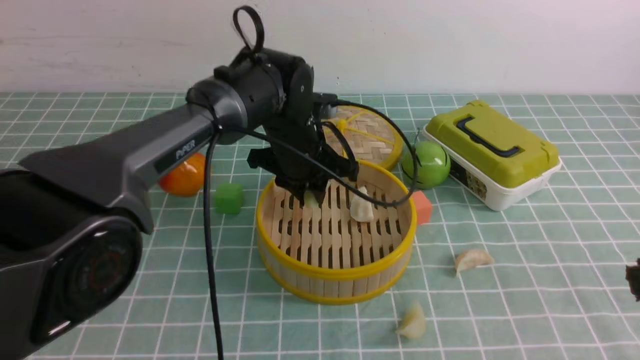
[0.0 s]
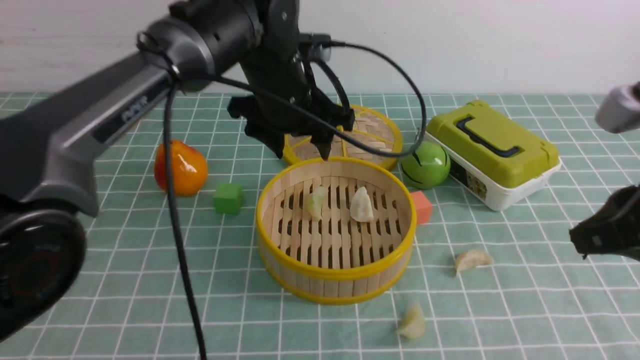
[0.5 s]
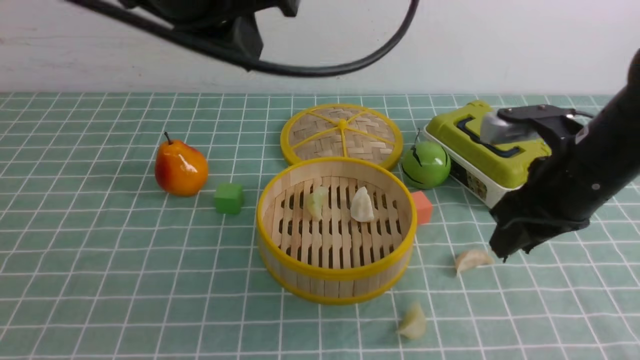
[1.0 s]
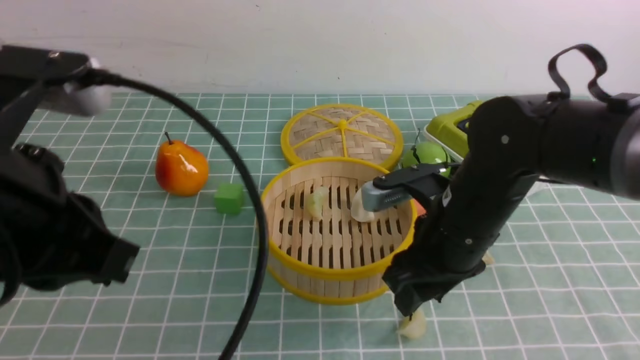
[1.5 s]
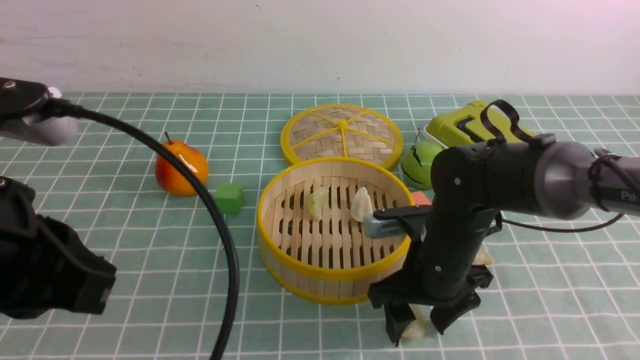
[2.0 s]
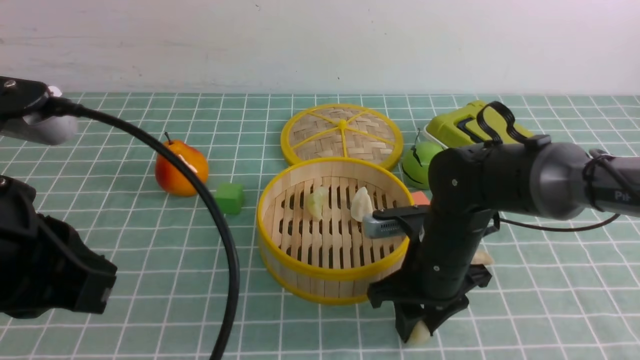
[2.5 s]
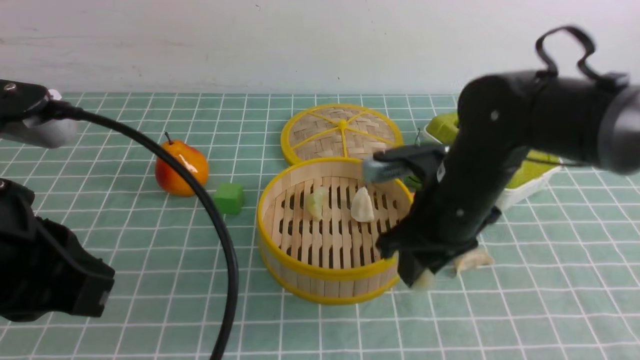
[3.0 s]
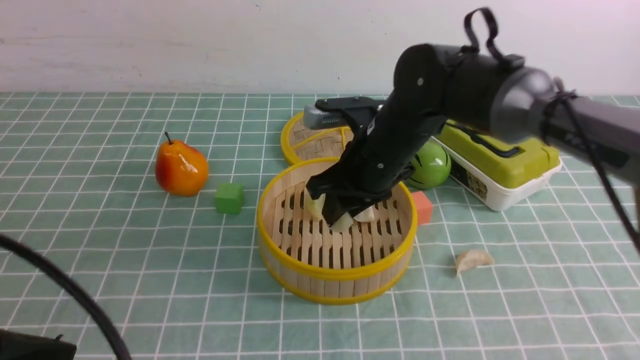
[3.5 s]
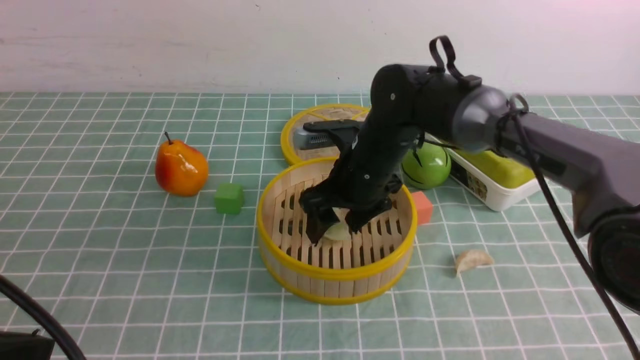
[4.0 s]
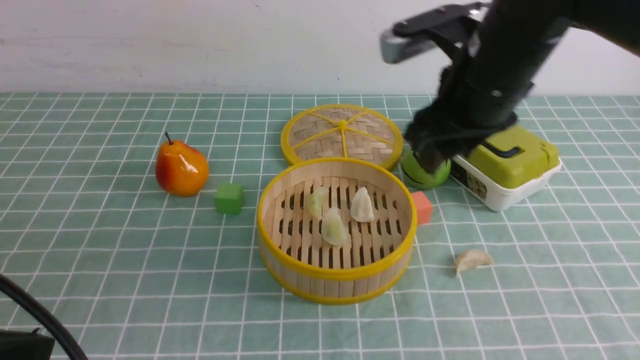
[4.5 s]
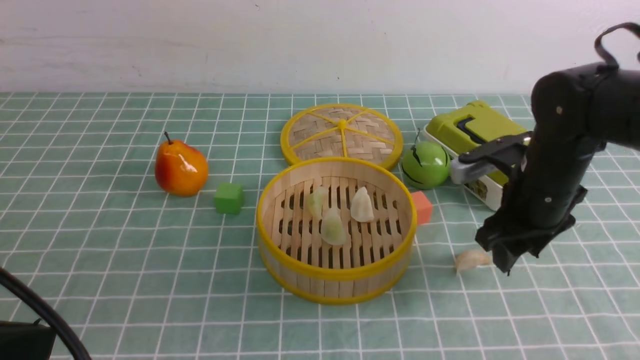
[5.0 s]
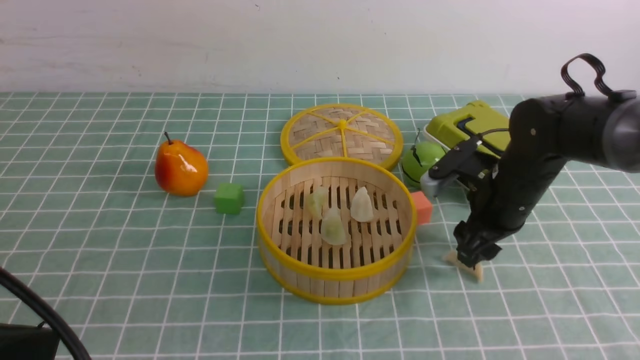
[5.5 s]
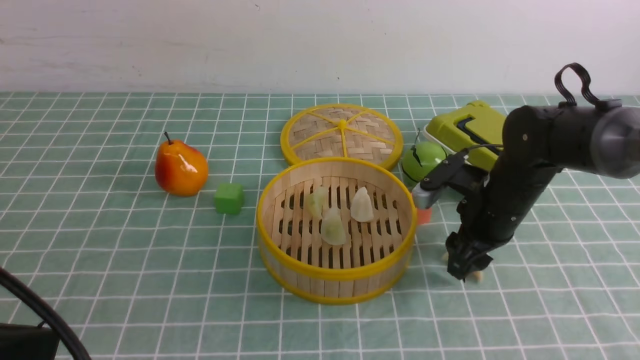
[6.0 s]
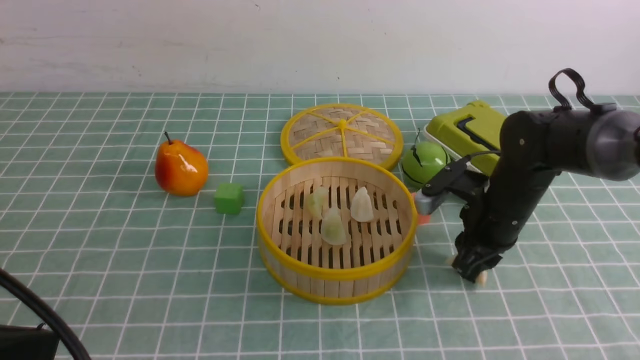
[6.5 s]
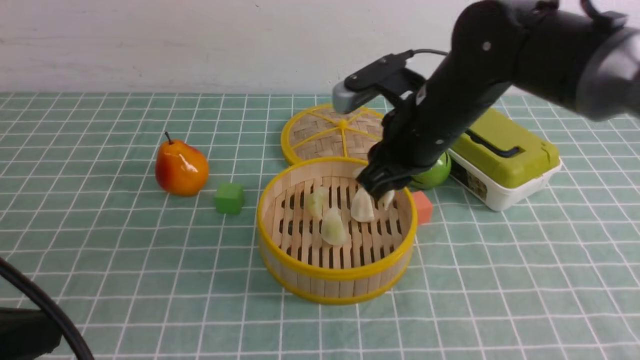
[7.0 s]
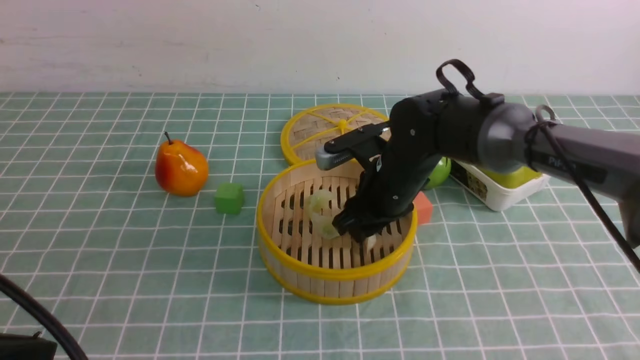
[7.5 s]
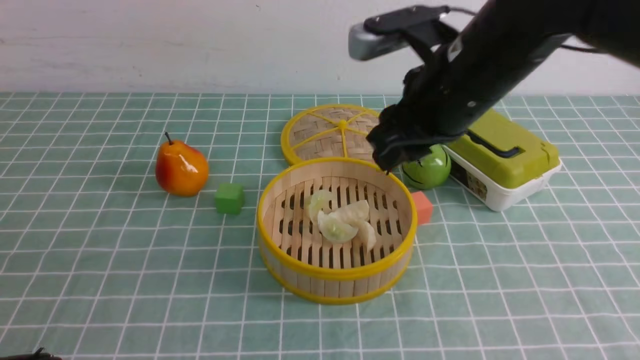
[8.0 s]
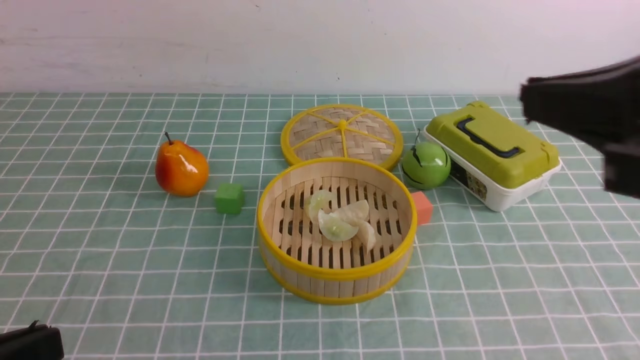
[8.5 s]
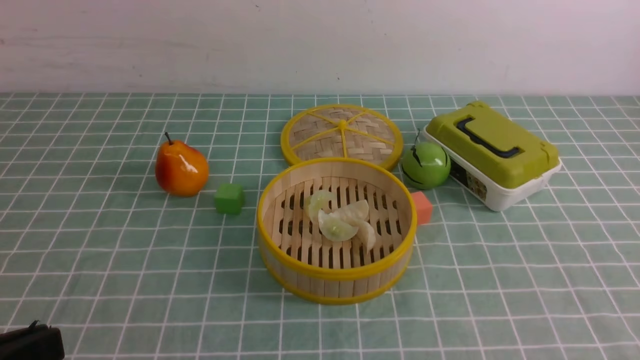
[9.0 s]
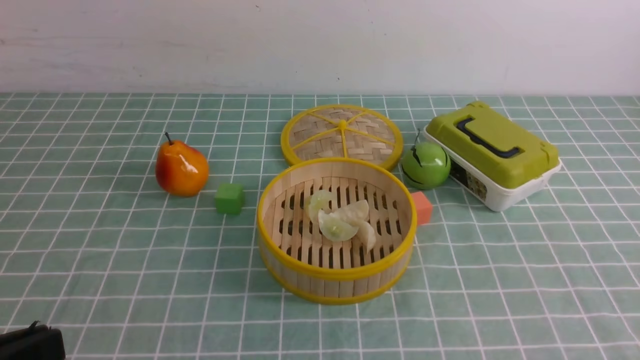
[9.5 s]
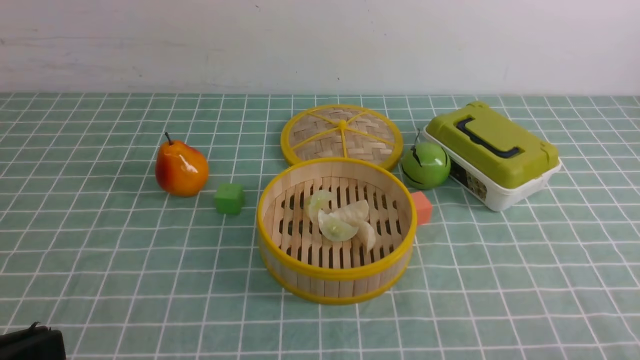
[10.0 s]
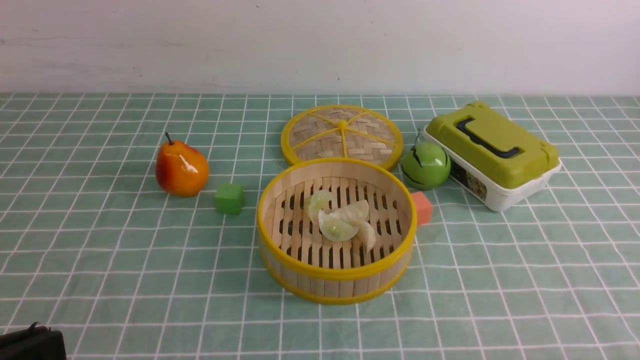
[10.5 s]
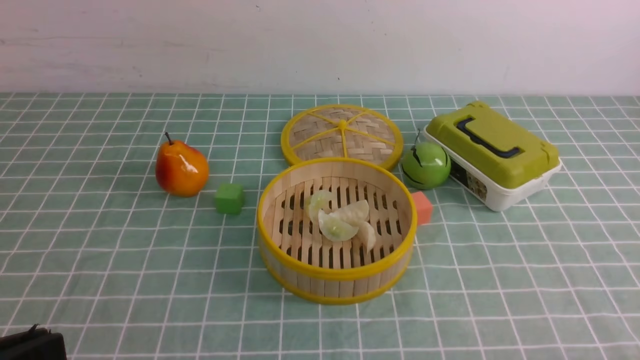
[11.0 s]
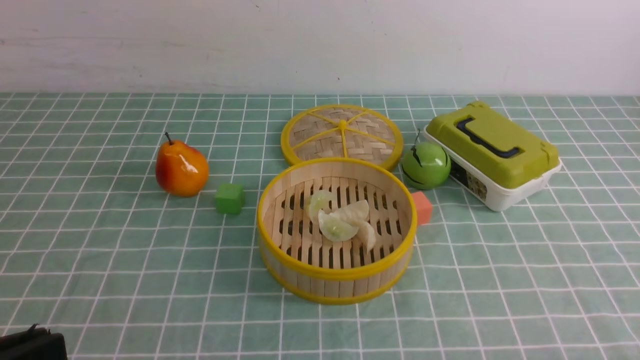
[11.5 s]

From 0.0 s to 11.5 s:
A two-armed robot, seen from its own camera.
Task of the whole recording: put the dumplings into the steamer on the table with the blue tablecloth.
Step, from 1.0 s to 2.5 s: use the right arm to grab a dumpling.
Step, from 3.0 s to 4.0 s: use the right arm to put the dumpling into the steamer.
Step, from 4.5 s to 6.0 s: use the right arm to grab a dumpling.
Step, from 6.5 s to 7.5 s: use the right arm to put the dumpling into the steamer.
From 0.0 s to 2.0 s: The left gripper moves backward, to the left and upward, roughly 35 cm, and closes. The right gripper goes some 30 cm forward, downward and to the left, and opens up.
From 2.0 s to 4.0 s: The left gripper shifts roughly 5 cm backward. The right gripper heads forward, upward and to the left, covering about 15 cm, and closes, then reopens.
From 4.0 s to 6.0 s: The right gripper heads to the right and downward, covering some 15 cm.
From 6.0 s to 7.5 s: The right gripper moves to the left, some 10 cm.
From 7.5 s to 9.5 s: The right gripper goes roughly 40 cm backward, to the right and upward, and closes its fingers.

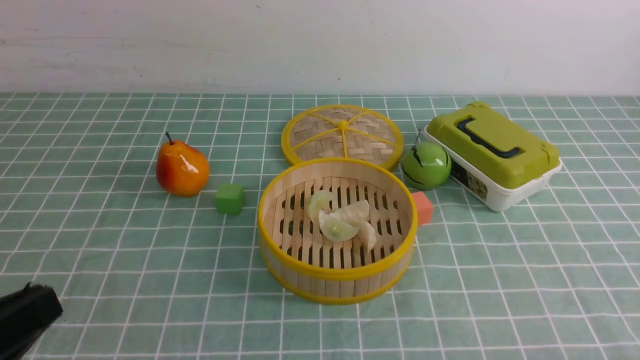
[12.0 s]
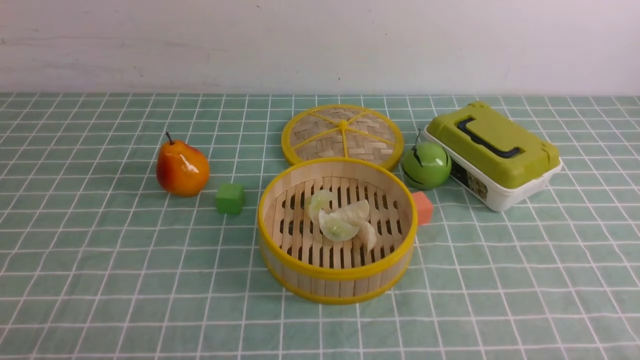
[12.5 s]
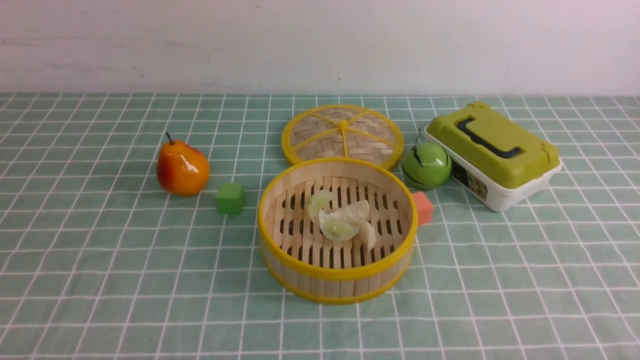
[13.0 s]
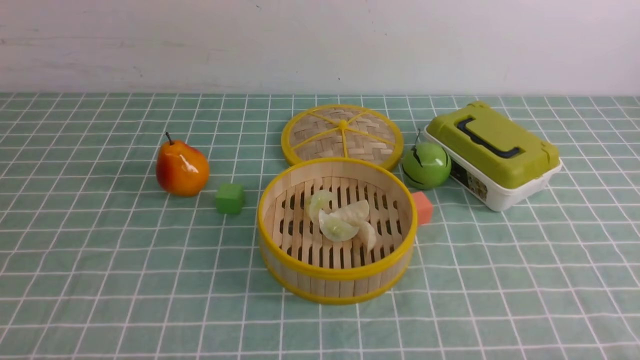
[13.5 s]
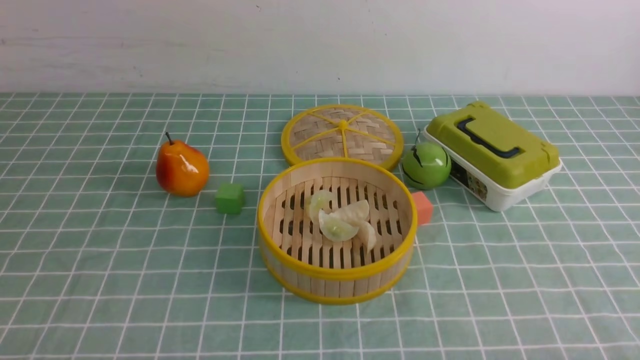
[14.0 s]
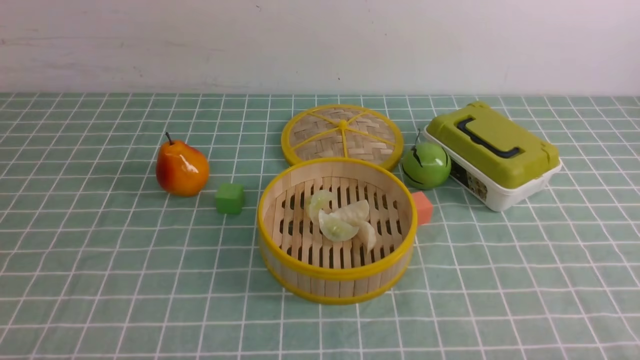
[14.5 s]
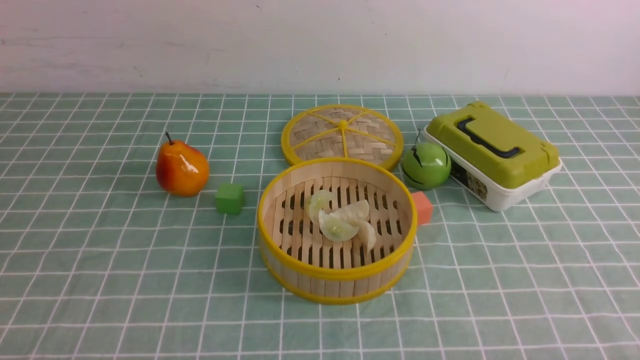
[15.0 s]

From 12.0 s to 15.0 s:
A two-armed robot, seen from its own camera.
Task of the whole recording: put the dumplings into the steamer on the table with the blue tablecloth.
From 12.0 s to 13.5 s: The left gripper moves downward, roughly 10 cm.
From 13.5 s to 15.0 s: The two grippers keep their place.

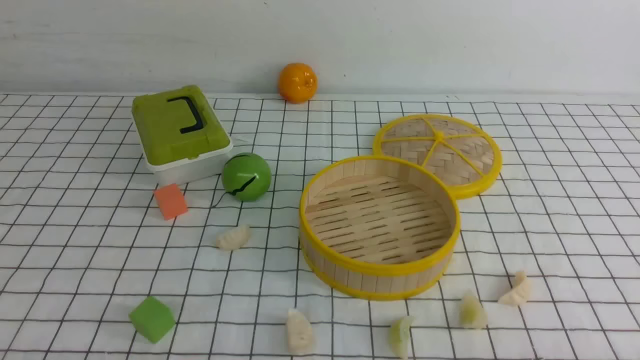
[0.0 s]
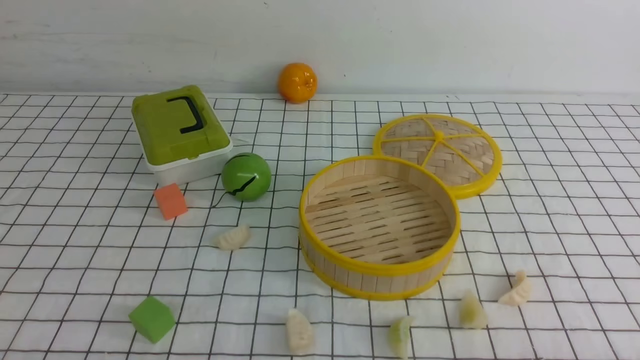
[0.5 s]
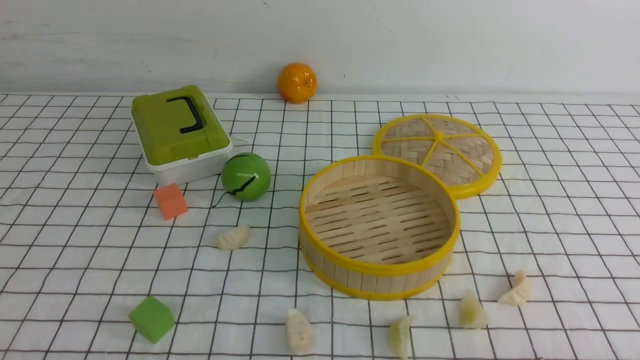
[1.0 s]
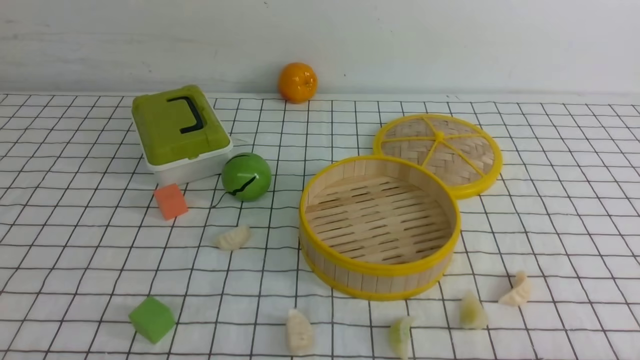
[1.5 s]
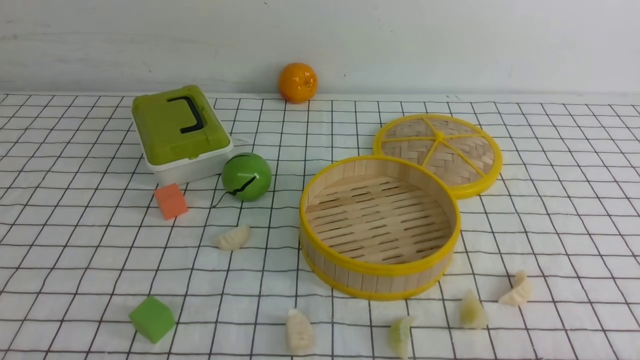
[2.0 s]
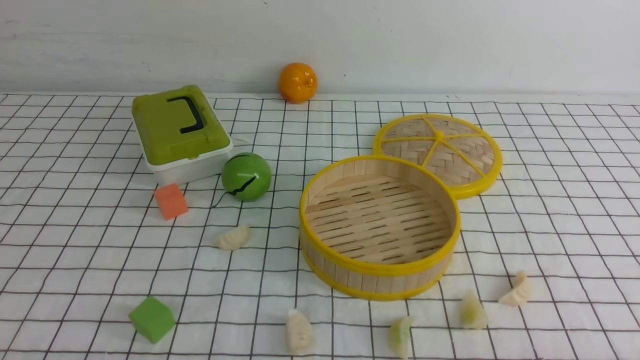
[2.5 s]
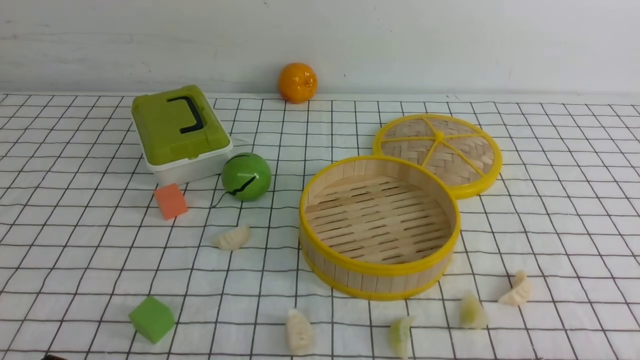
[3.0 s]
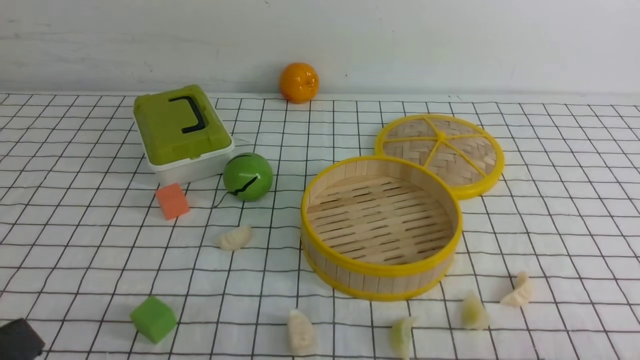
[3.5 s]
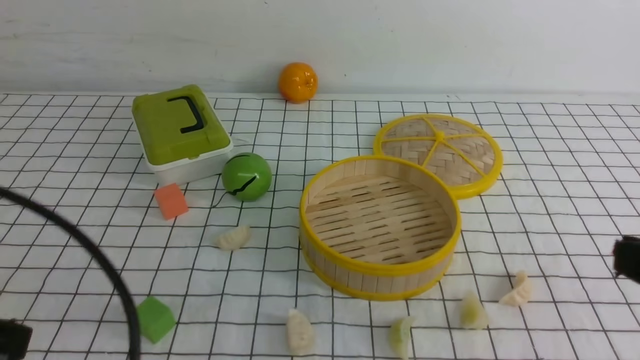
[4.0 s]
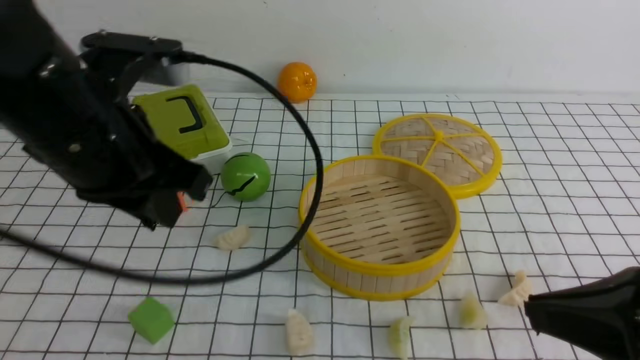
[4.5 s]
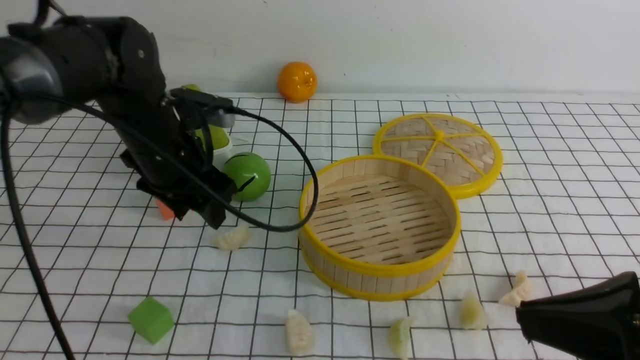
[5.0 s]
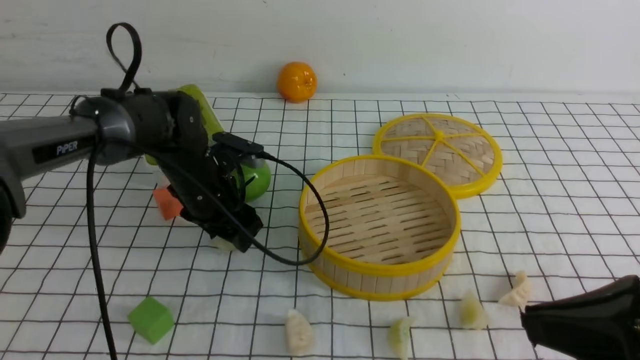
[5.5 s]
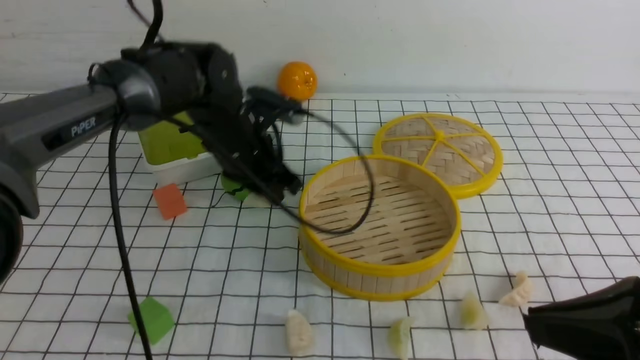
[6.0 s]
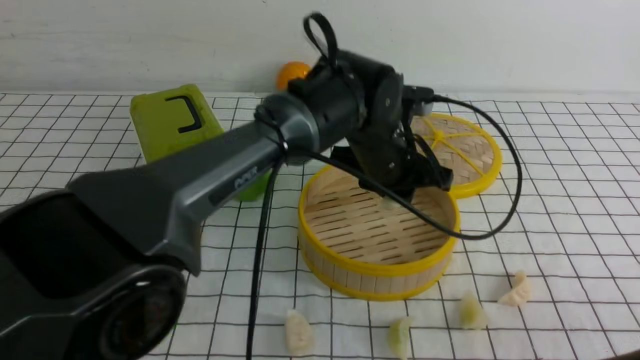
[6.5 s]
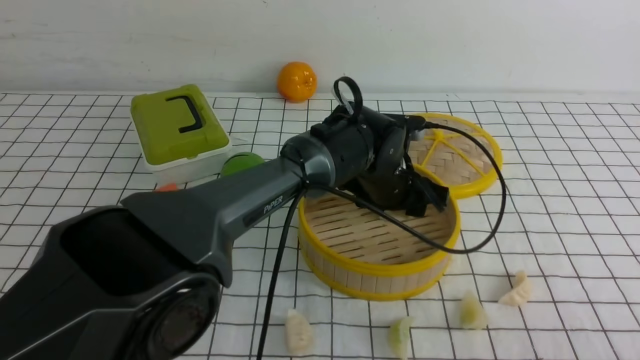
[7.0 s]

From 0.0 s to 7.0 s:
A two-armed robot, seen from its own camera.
Task of the whole recording: put the dumplings into the steamer on the table with the white tablecloth.
Step, from 0.0 s to 5.5 s: use the left arm to grab a dumpling.
From 0.0 s to 2.0 s: The two grippers keep their place.
From 2.0 s to 3.5 s: The left gripper heads upward, covering about 15 cm.
From 3.5 s to 5.0 s: The left gripper travels forward by about 35 cm, and opens. Meanwhile the right gripper heads upward, forward and to the left, covering about 10 cm.
From 5.0 s to 7.0 s: The left gripper moves to the right, some 20 cm, and closes, then reopens. Meanwhile the right gripper is displaced backward by roughly 5 cm.
